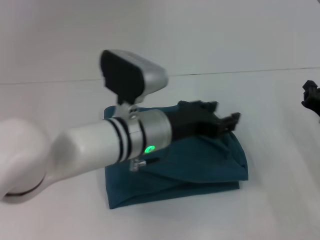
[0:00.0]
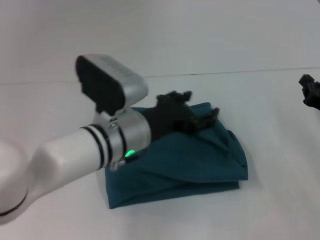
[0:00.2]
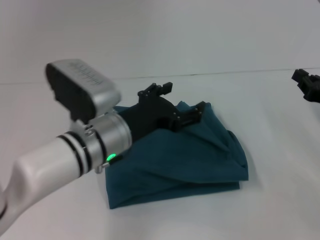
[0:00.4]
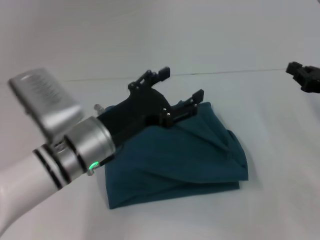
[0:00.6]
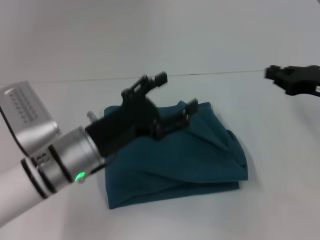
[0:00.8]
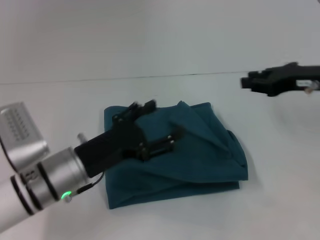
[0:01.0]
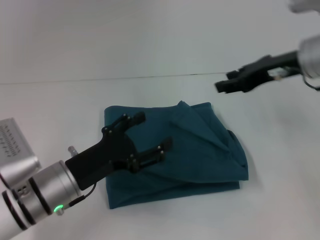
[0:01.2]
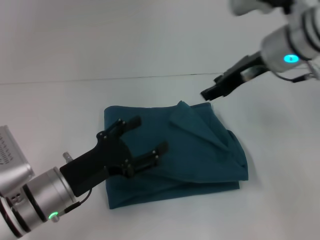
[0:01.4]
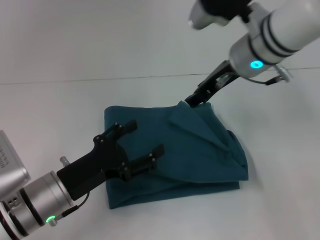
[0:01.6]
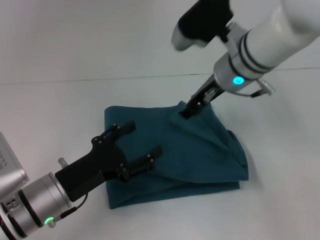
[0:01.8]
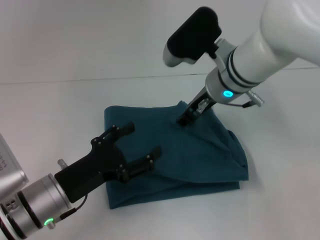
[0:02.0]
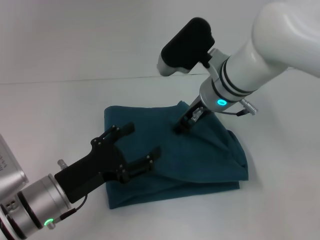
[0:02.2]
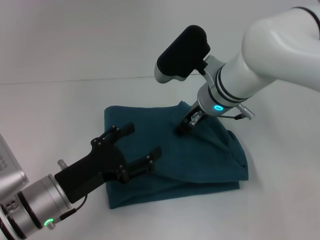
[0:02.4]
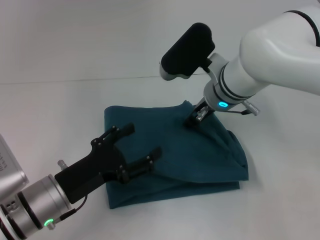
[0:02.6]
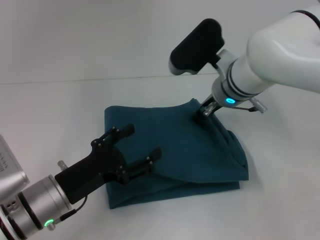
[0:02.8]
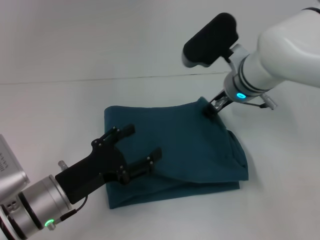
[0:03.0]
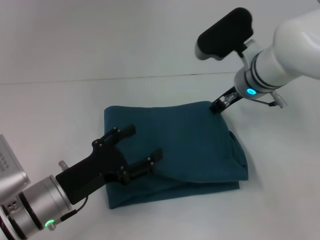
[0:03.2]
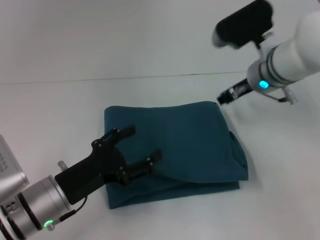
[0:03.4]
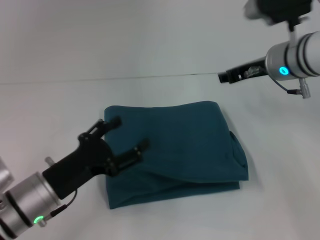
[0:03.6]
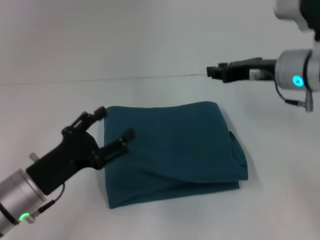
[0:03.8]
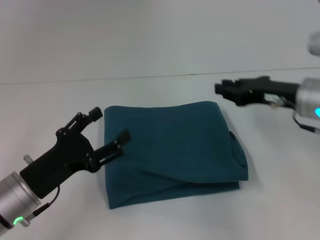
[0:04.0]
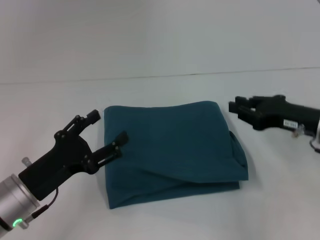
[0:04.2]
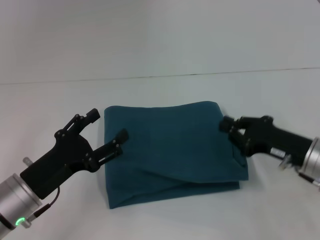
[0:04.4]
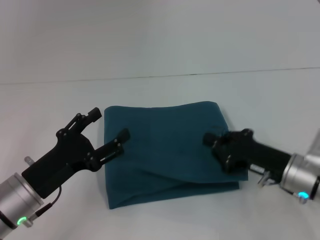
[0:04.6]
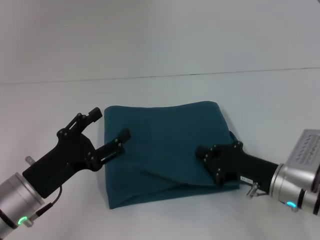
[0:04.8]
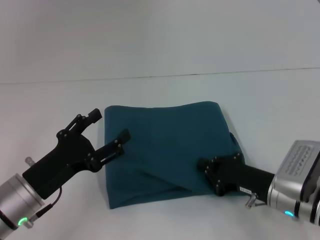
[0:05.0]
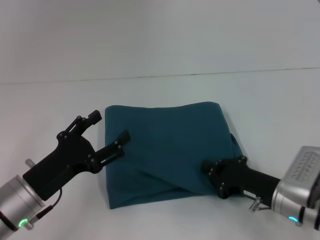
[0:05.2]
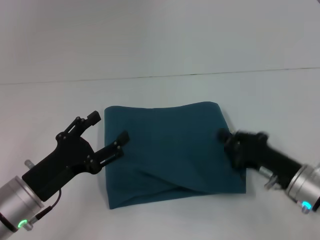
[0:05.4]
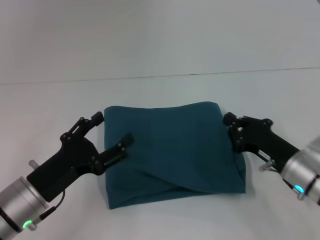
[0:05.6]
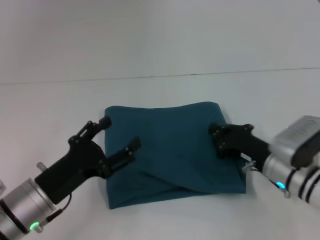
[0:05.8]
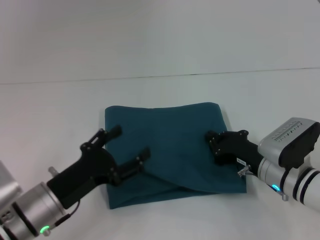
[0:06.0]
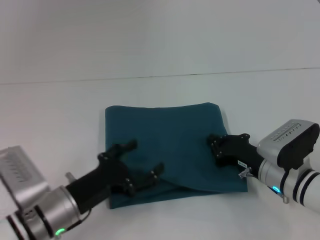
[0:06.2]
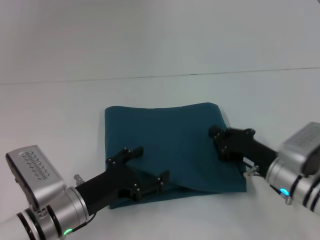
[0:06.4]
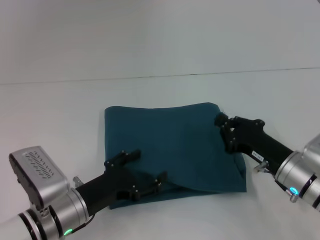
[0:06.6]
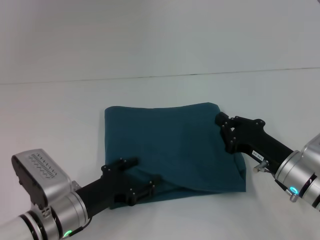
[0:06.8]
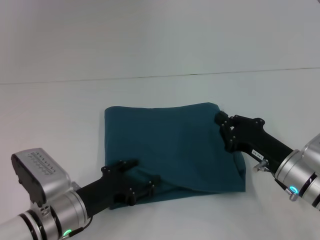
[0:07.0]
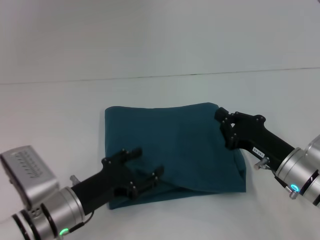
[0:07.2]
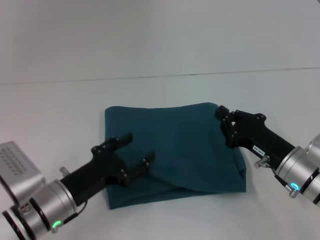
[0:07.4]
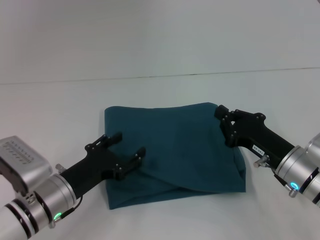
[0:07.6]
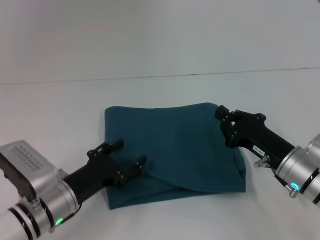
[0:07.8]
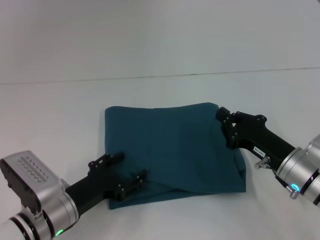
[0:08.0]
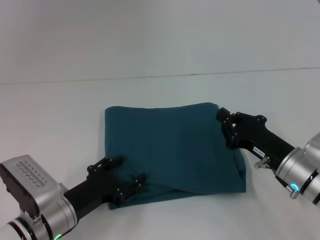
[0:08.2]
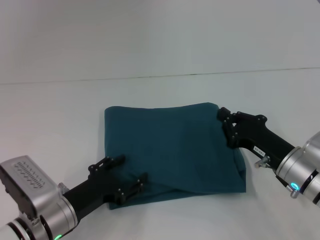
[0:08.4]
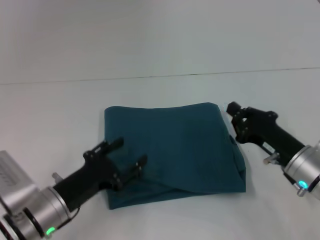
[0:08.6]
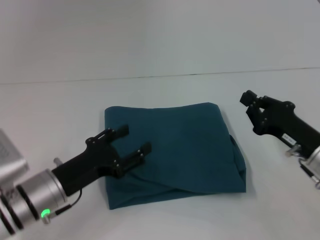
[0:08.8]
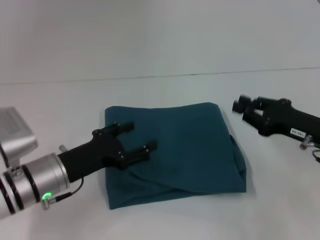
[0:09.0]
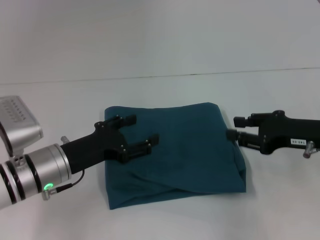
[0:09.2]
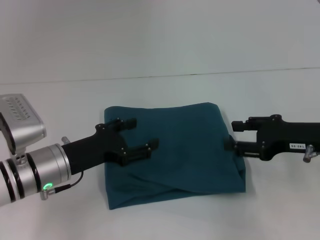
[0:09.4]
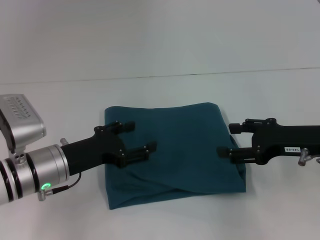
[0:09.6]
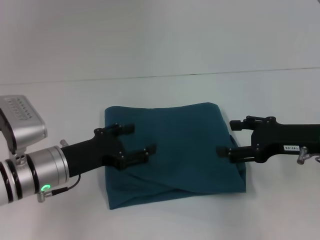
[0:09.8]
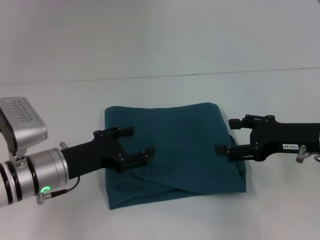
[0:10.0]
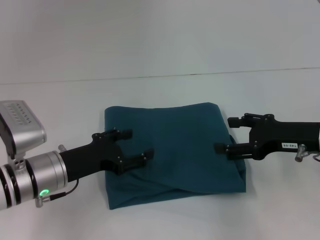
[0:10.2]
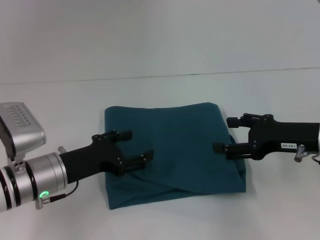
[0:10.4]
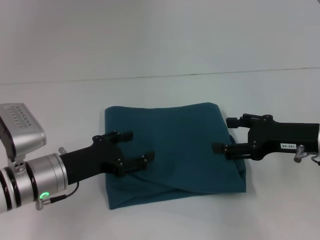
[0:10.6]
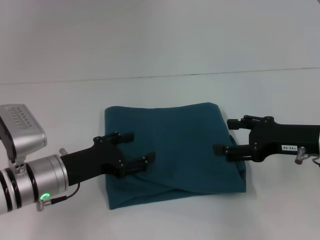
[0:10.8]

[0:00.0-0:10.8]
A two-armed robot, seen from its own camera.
0:00.0 to 0:01.6: The right gripper heads upward, to the left and forward, covering approximately 25 cm, and opens; the left gripper goes approximately 15 cm to the left, downward and backward, and opens.
0:01.6 to 0:03.0: The right gripper shifts approximately 5 cm downward.
0:03.0 to 0:04.6: The right gripper shifts about 20 cm backward, downward and to the right, and closes its fingers.
0:04.6 to 0:06.2: The right gripper shifts by some 5 cm.
0:07.8 to 0:09.2: The right gripper is displaced upward and to the right by roughly 10 cm. Meanwhile the left gripper moves upward, some 5 cm.
0:09.2 to 0:10.8: The right gripper opens up.
